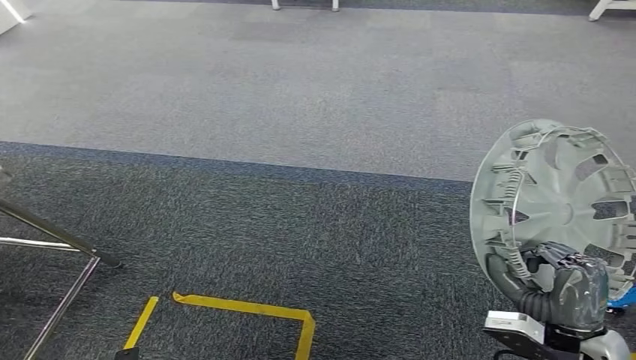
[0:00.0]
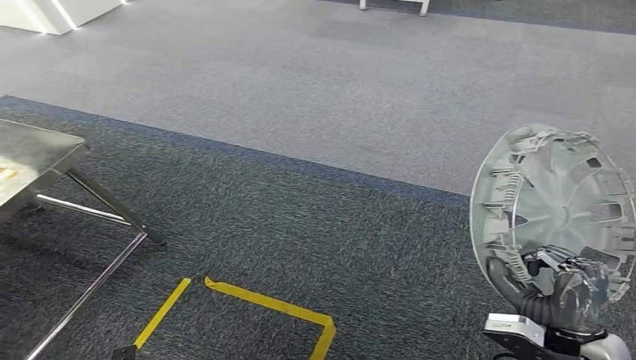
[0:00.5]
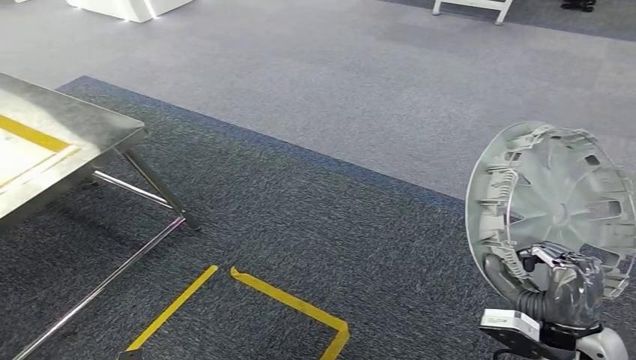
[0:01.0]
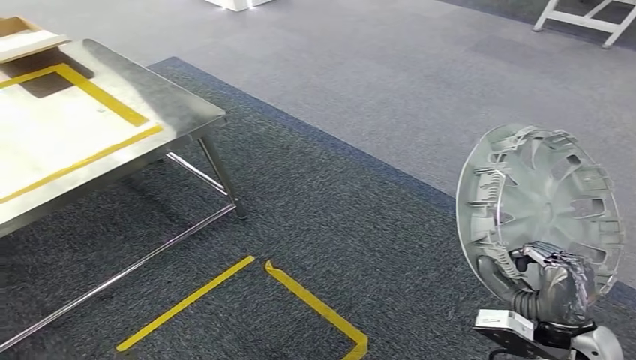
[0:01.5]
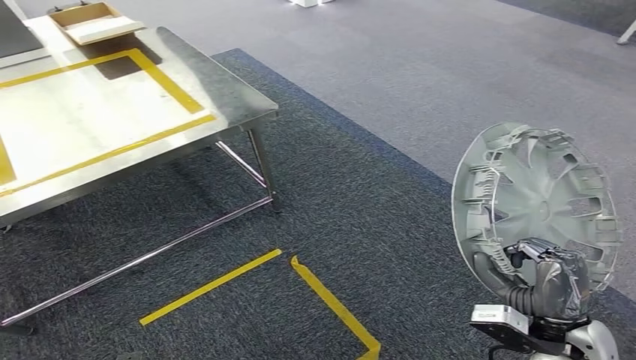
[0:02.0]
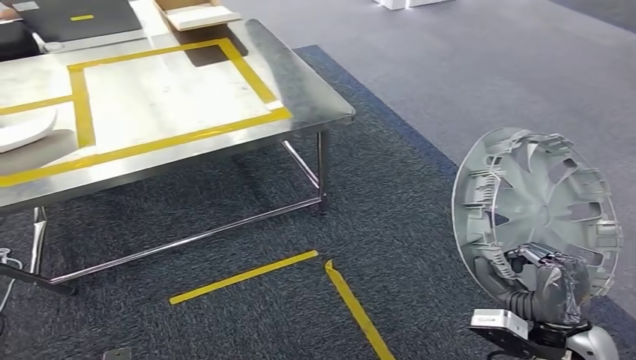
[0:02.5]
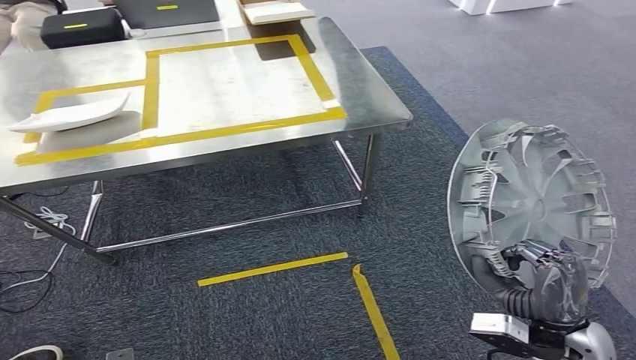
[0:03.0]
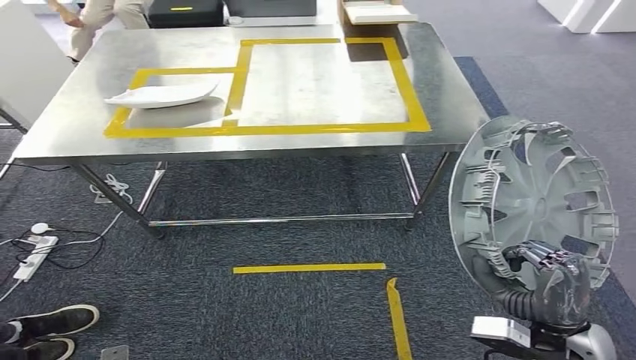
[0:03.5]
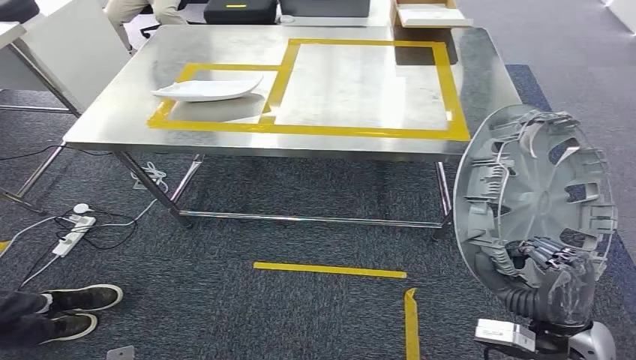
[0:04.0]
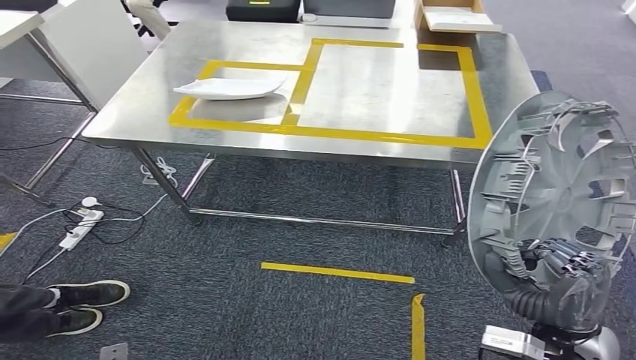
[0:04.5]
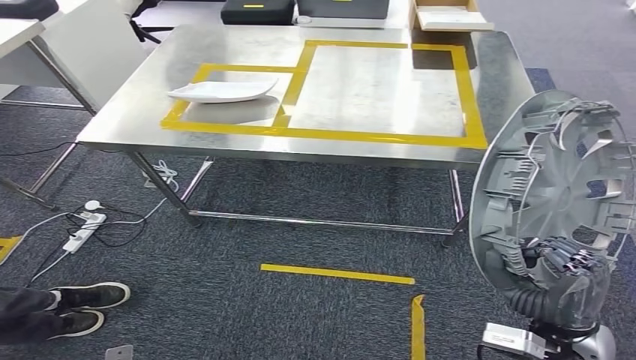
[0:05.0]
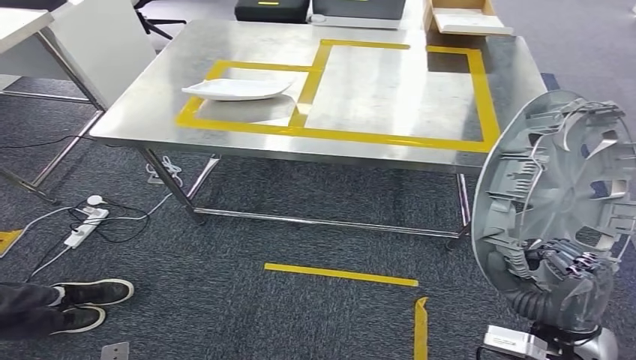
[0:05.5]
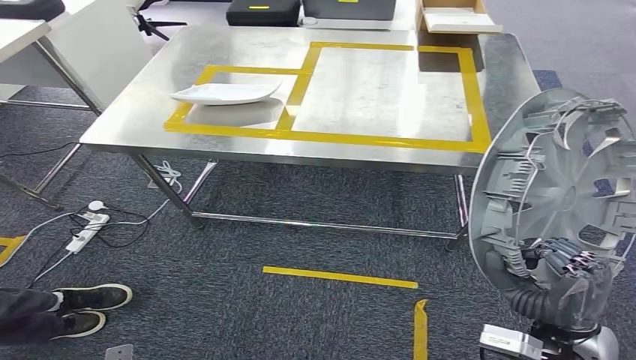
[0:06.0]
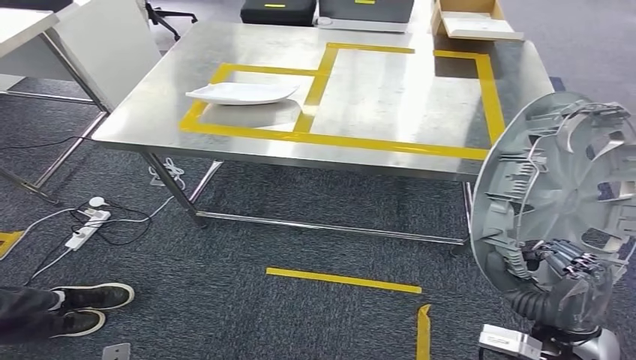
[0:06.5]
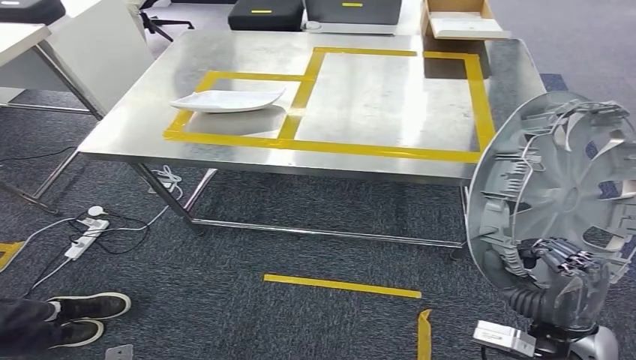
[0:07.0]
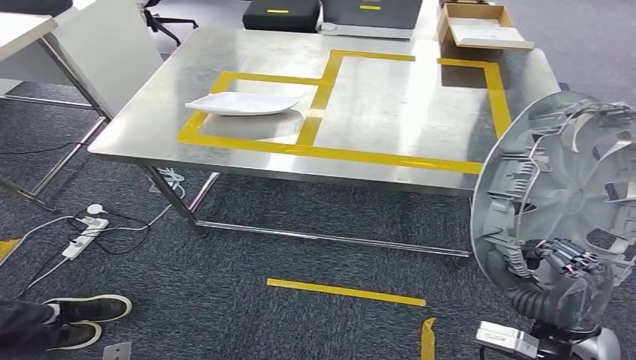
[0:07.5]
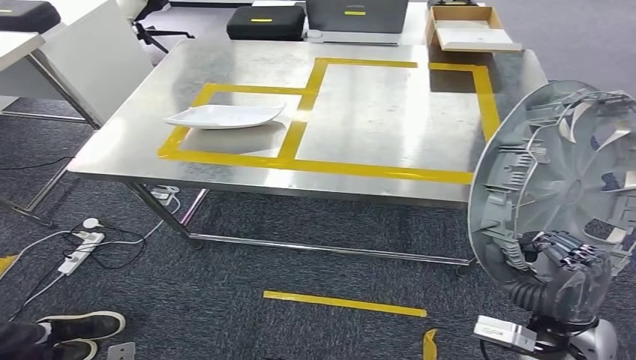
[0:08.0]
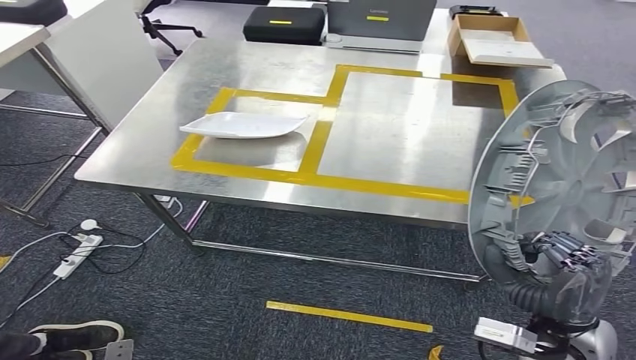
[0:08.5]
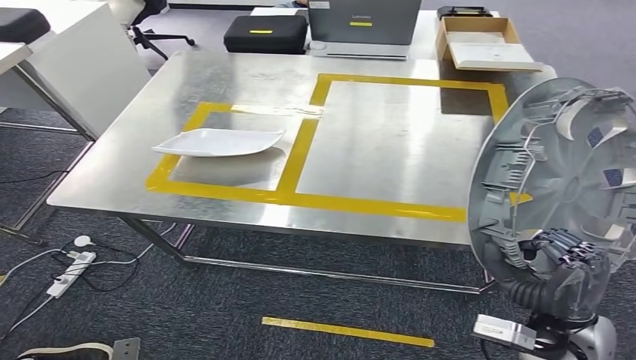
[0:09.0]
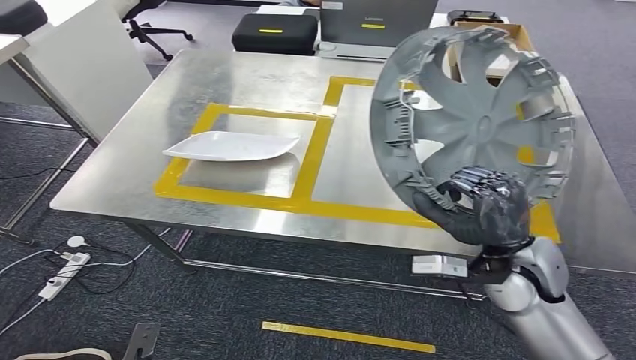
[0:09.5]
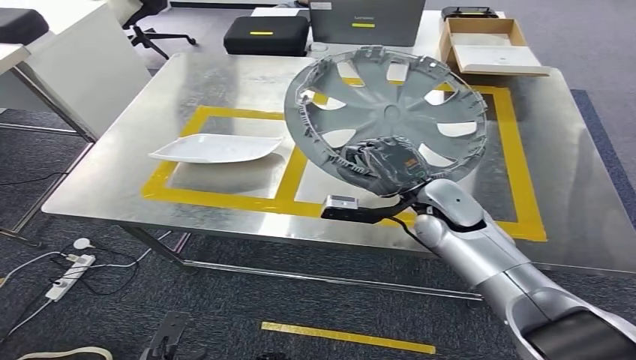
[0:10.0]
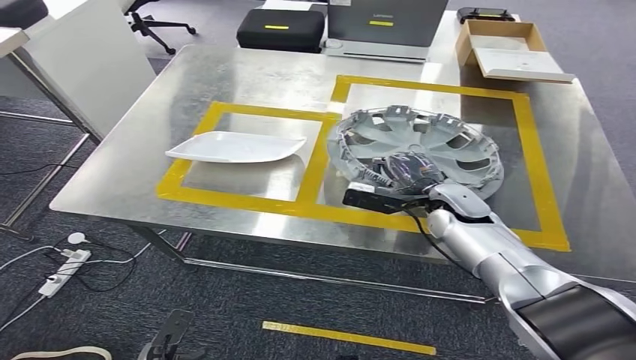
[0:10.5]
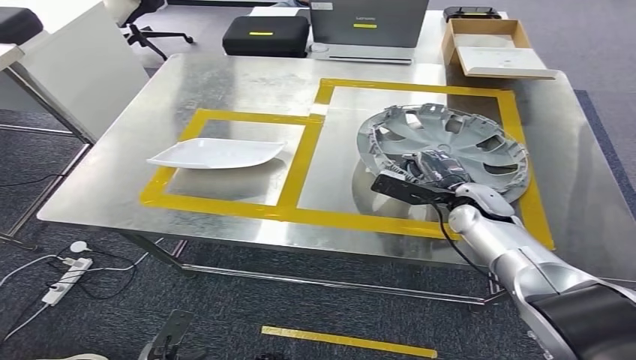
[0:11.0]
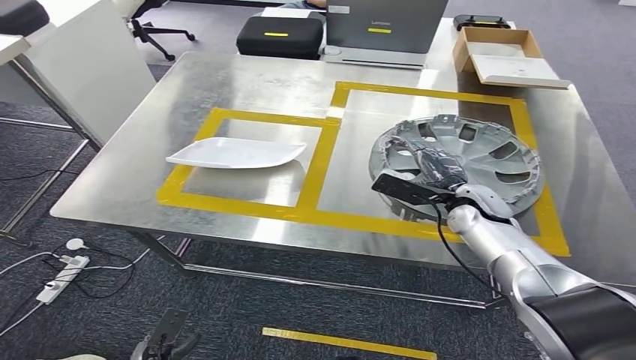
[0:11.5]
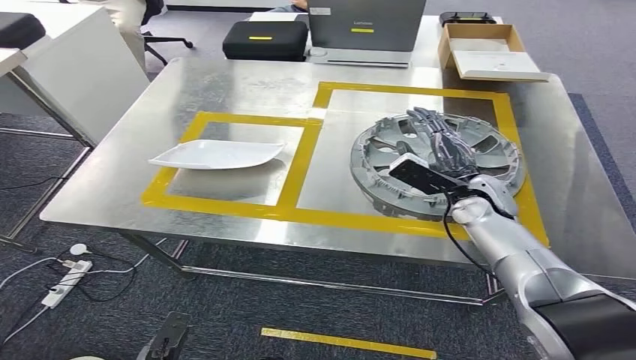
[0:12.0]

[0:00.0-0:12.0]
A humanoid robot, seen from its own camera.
Step, 0:00.0 to 0:06.0: Move the small parts to the workbench.

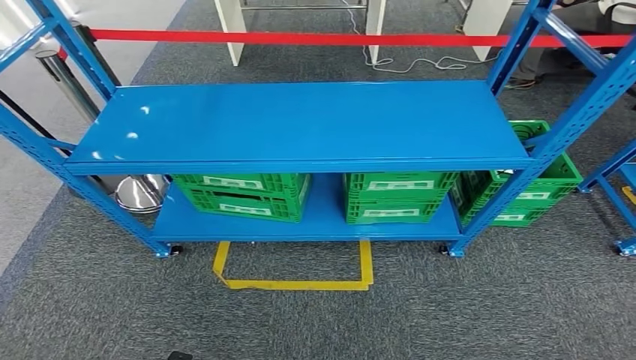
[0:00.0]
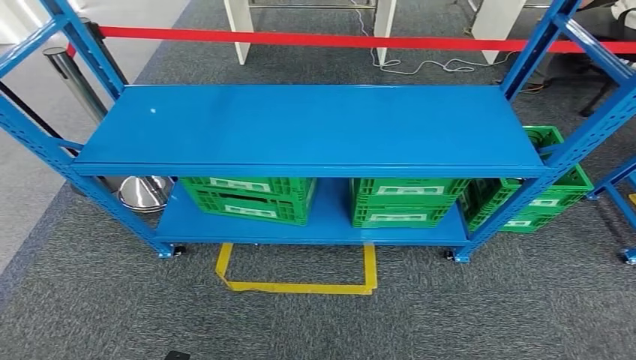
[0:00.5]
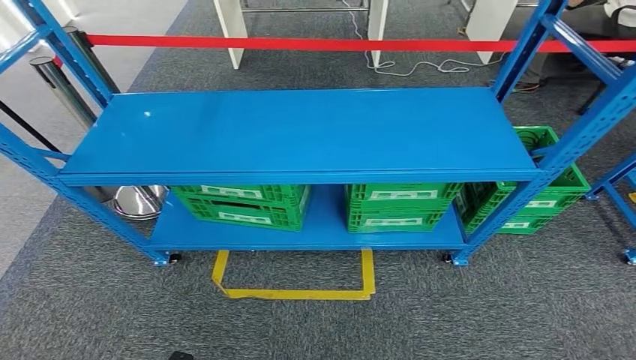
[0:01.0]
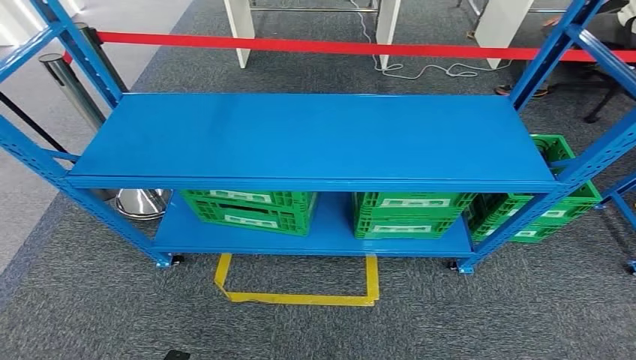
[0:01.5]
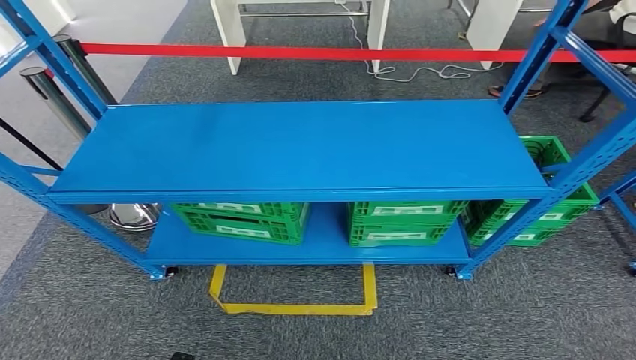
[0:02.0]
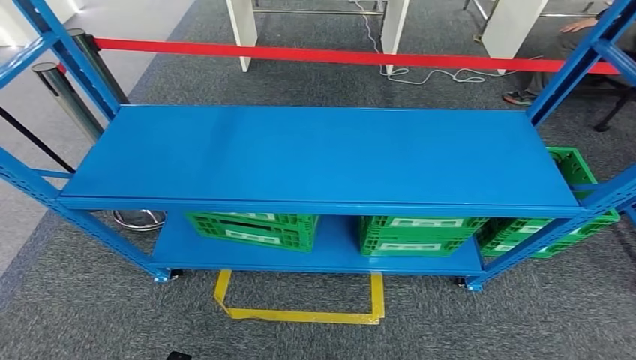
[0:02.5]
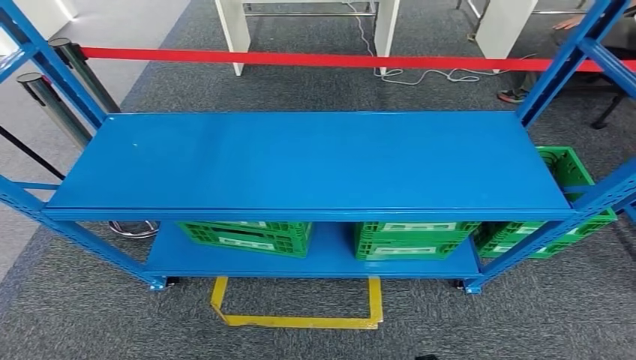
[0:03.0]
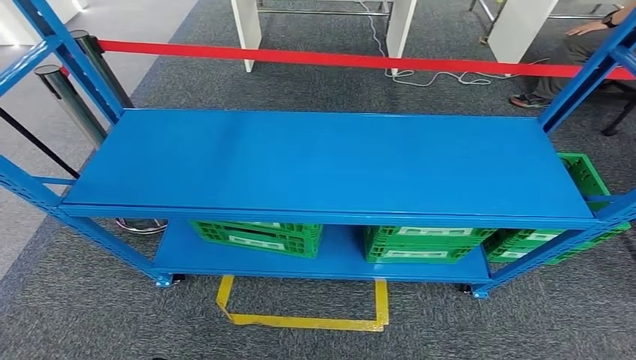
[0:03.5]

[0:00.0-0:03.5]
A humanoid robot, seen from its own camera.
Step, 0:00.0 to 0:03.5: Move to the initial position of the workbench.
